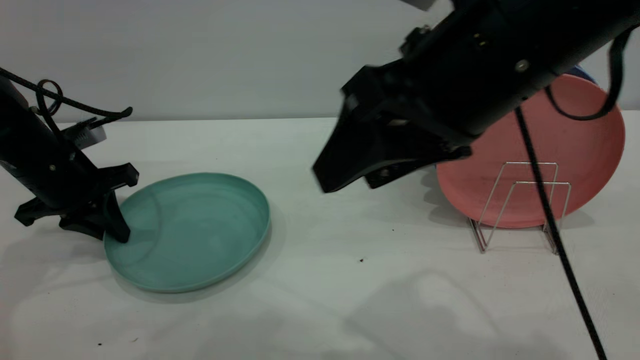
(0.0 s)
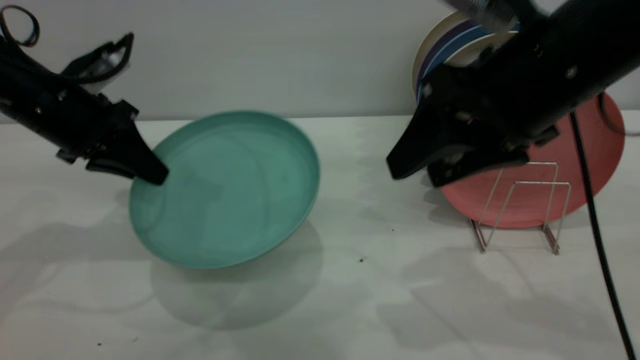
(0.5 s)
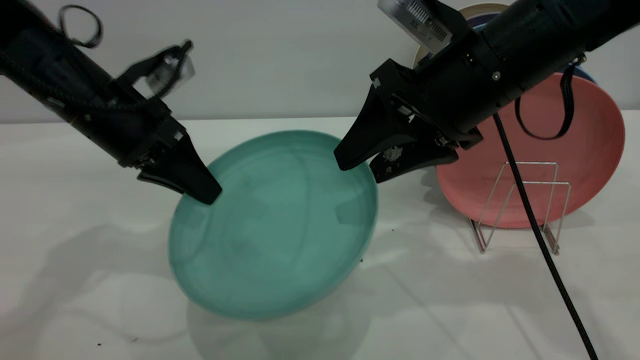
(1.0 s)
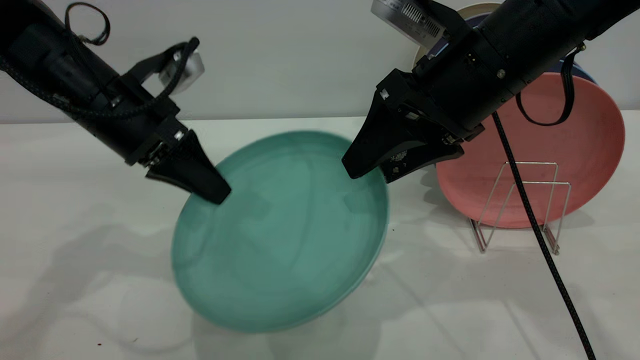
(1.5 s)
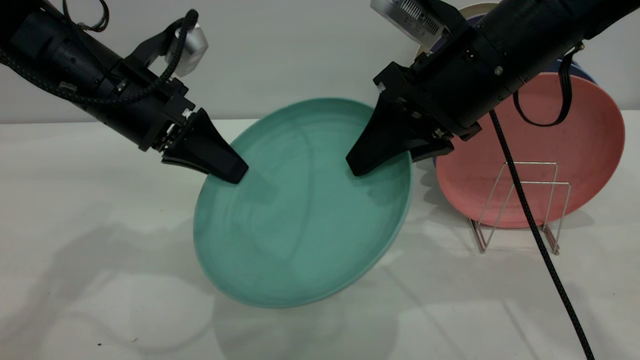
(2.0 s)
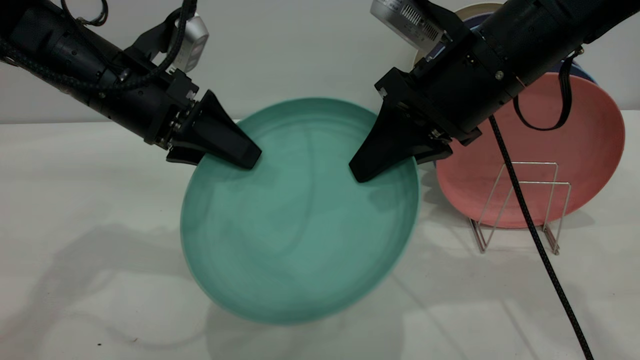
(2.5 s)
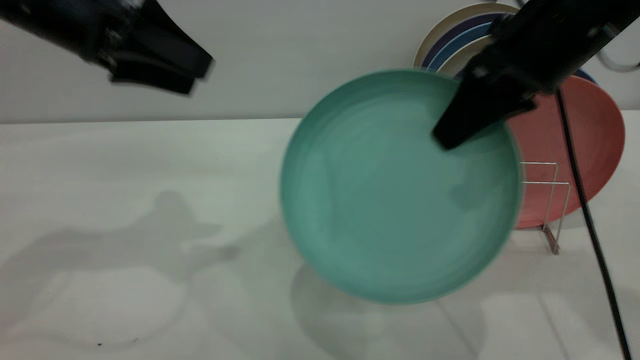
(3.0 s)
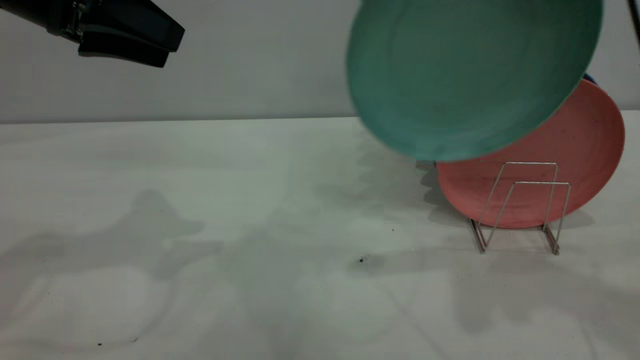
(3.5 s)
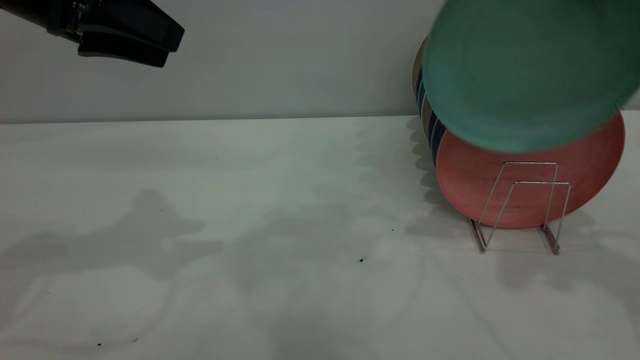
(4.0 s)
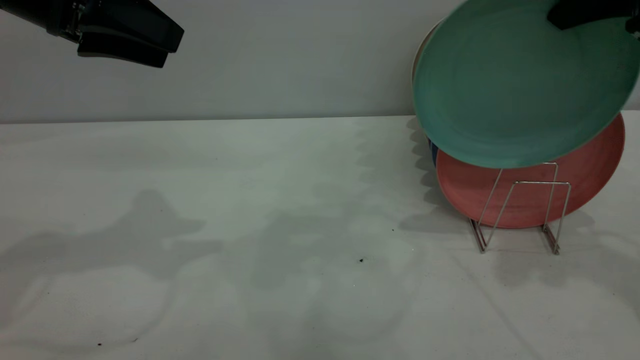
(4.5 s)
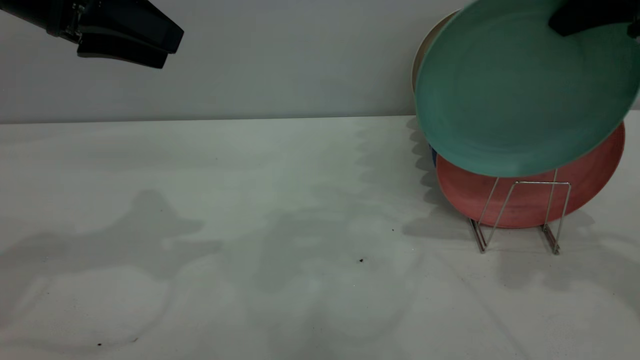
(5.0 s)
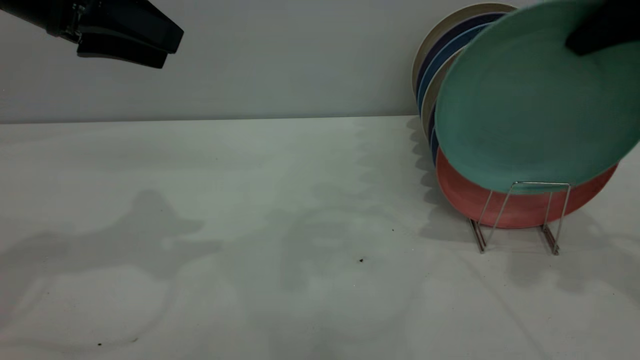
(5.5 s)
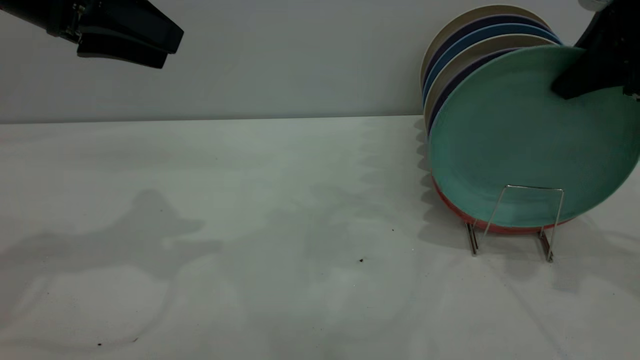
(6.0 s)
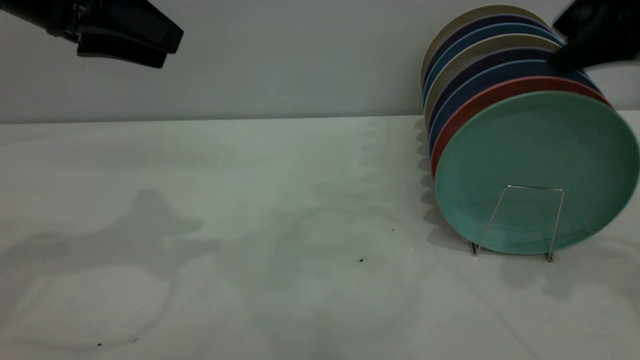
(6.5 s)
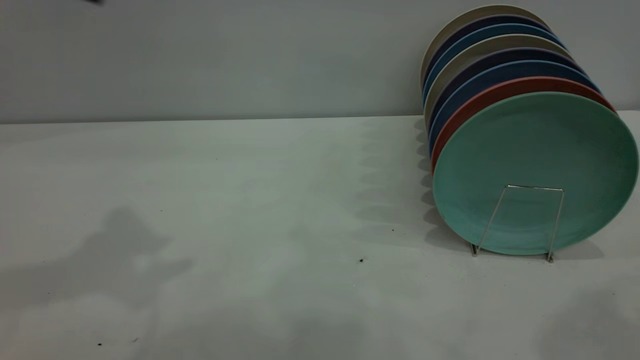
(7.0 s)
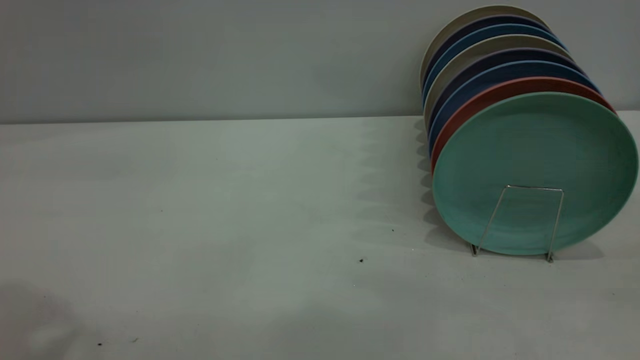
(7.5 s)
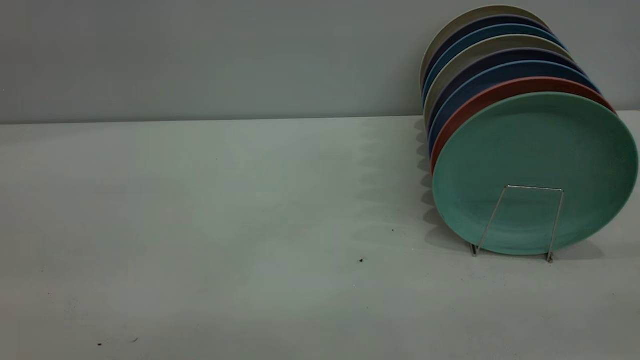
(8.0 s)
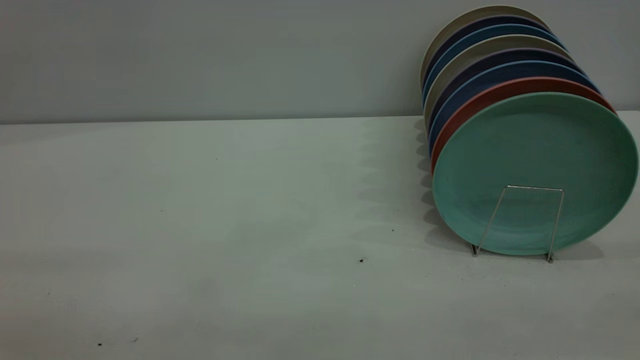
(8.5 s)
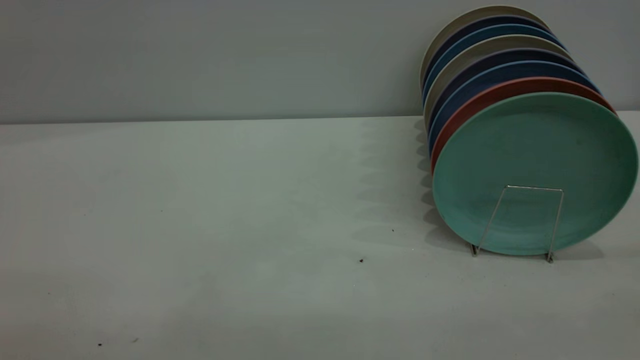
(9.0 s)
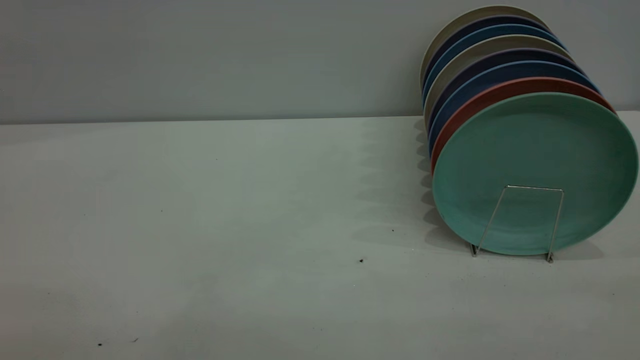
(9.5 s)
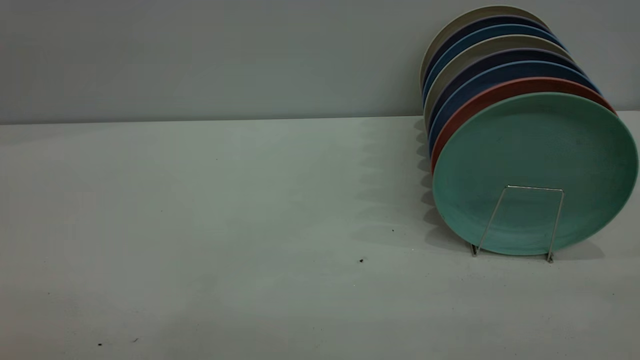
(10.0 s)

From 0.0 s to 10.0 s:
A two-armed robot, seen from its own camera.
Task of the whole recording: the left gripper grasp the green plate, the left gripper pass the green plate to the right gripper, and the right gripper place the green plate on the plate rack.
Step, from 0.5 s to 2.5 s: Pass the plate from the left gripper to the right gripper.
Step, from 3.0 s to 6.5 s: Place the plate on the shelf.
From 0.0 s to 2.0 s: The left gripper goes about 15 cm to the right and upward. The right gripper moves forward, roughly 10 cm, and closes its fingers.
From 2.0 s to 4.0 s: The left gripper travels upward and to the left by some 10 cm, and opens up. Meanwhile the right gripper goes about 20 cm to the right and upward.
From 4.0 s to 6.0 s: The right gripper goes approximately 5 cm downward.
From 6.0 s to 8.0 s: The left gripper is displaced backward and upward by approximately 30 cm; the right gripper is displaced backward by roughly 30 cm, and opens.
